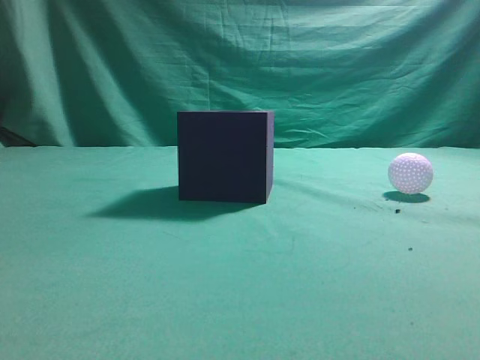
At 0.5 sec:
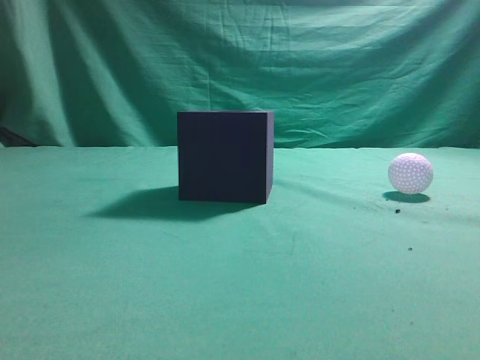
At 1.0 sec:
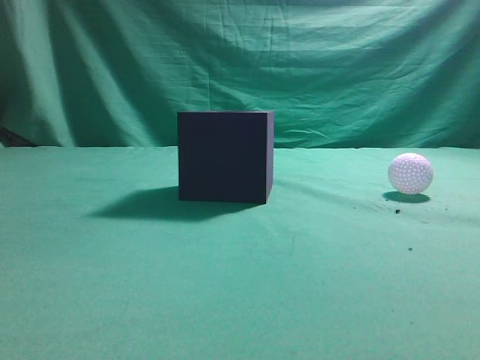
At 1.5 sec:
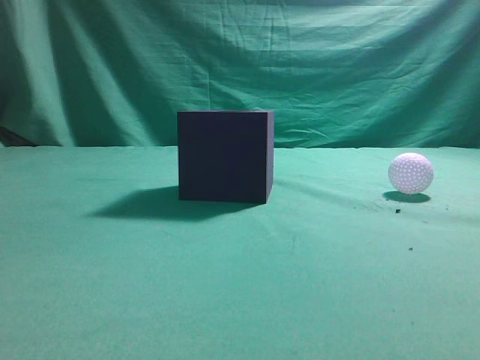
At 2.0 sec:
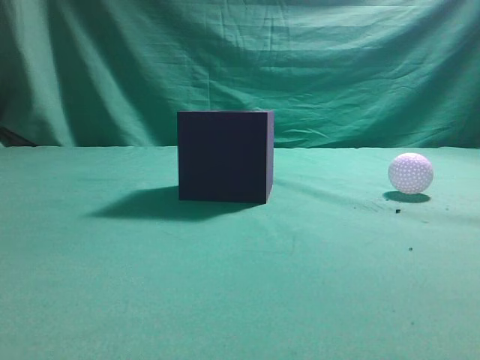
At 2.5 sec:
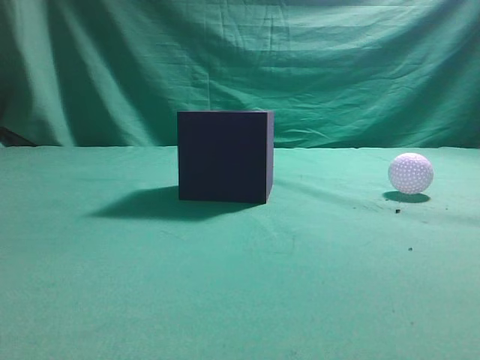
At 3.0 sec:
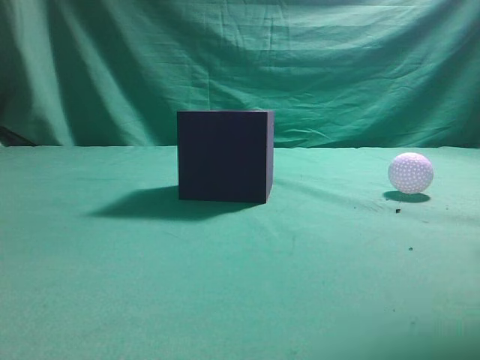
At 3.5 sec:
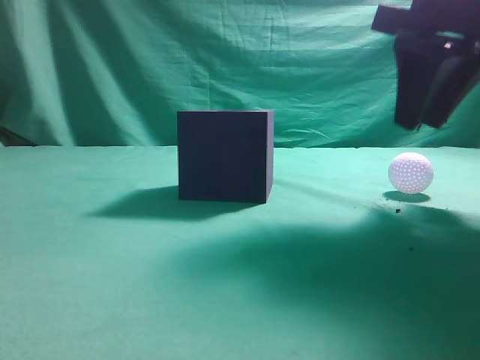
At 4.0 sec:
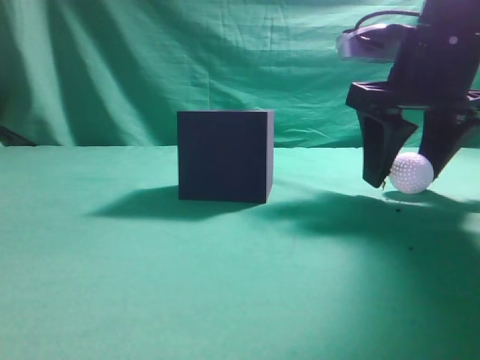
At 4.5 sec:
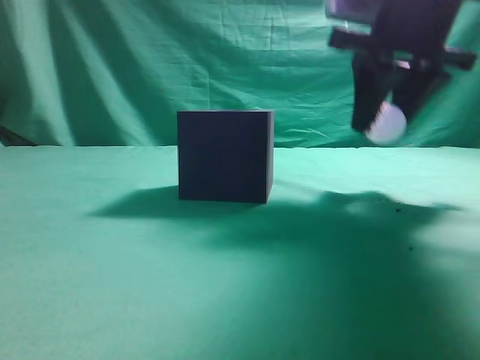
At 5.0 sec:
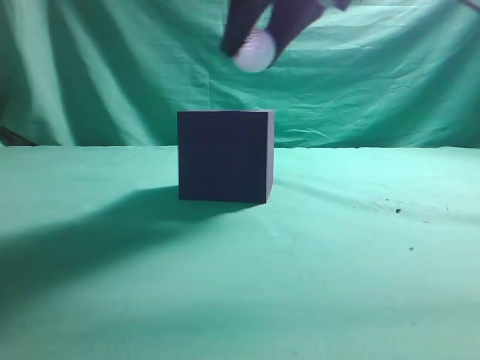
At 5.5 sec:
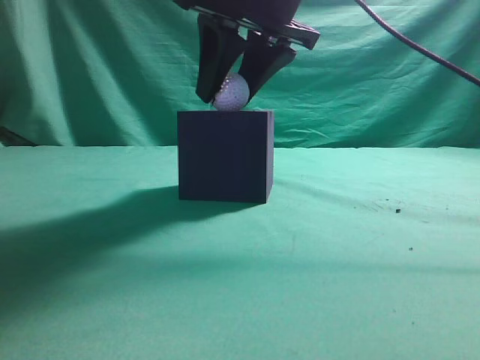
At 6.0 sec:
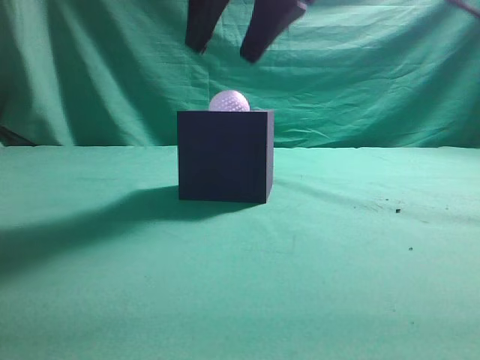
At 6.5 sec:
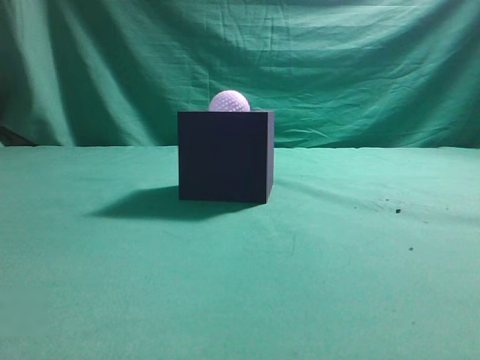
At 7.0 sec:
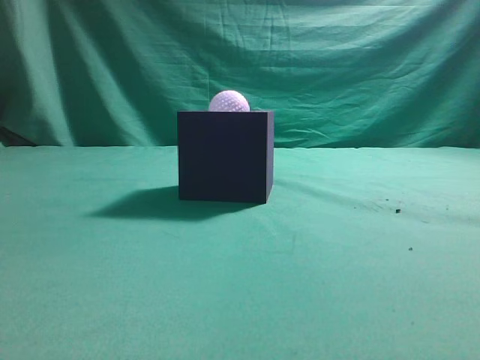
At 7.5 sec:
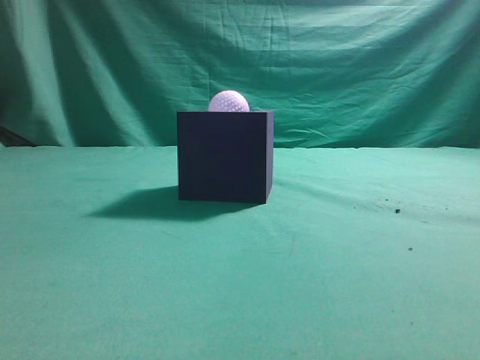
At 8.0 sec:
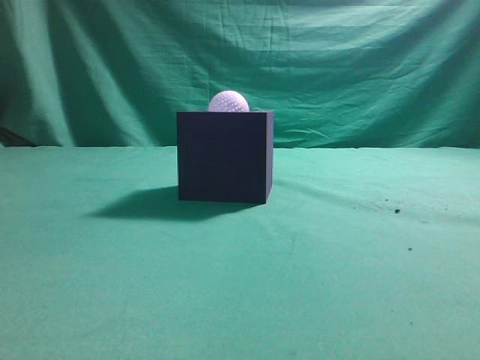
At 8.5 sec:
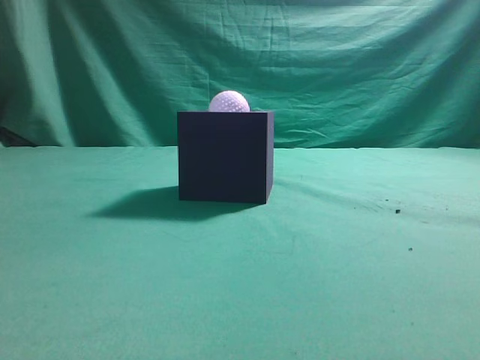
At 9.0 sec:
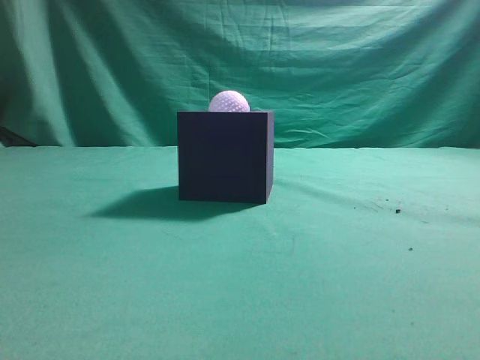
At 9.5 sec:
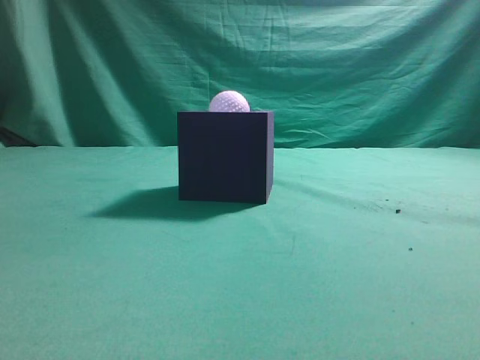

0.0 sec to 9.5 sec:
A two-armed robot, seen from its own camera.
Task of the whole recording: Pick up the ball and place it in the circular groove above the cube.
Step, 0.0 sec to 4.0 sec: Grasp the sphere on the table.
Step, 4.5 sec to 5.5 sec: Place the sphere into the sphere-shaped recess.
2.0 sec to 4.0 sec: The right gripper moves forward and to the left, approximately 30 cm, and opens its fingers.
4.0 sec to 5.5 sec: The right gripper travels to the left and upward by roughly 15 cm, and closes.
5.5 sec to 7.5 sec: The right gripper goes some 40 cm backward, to the right and upward, and closes up.
